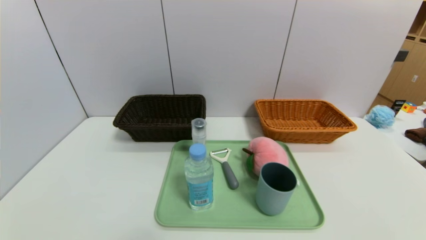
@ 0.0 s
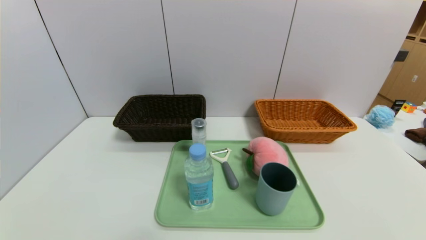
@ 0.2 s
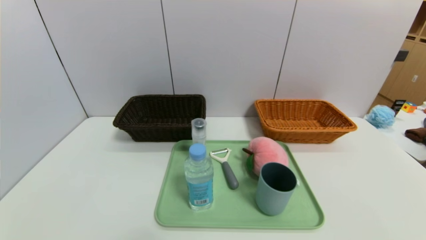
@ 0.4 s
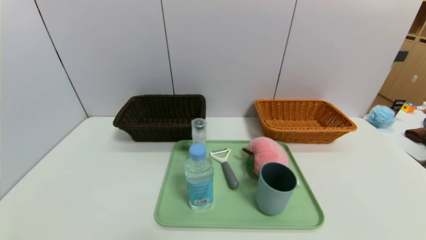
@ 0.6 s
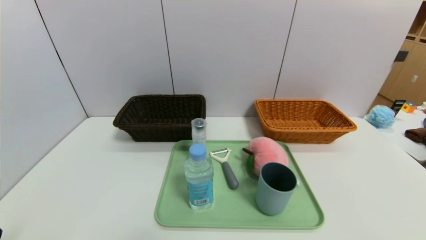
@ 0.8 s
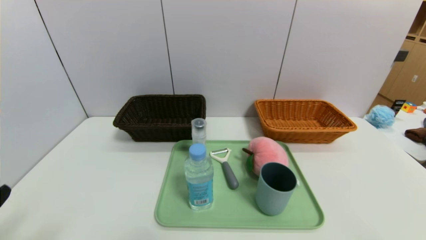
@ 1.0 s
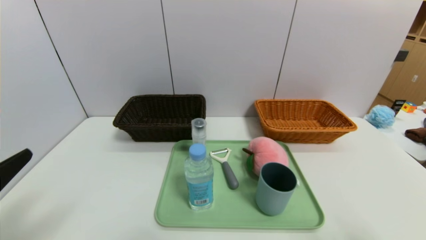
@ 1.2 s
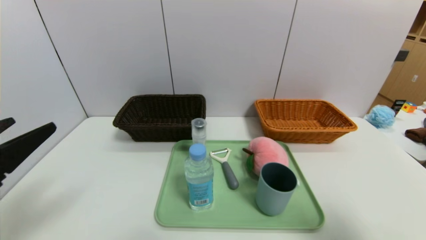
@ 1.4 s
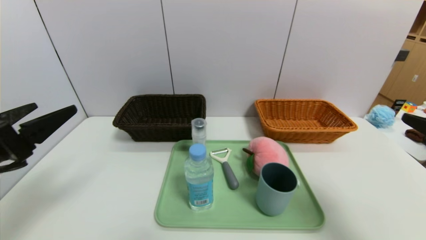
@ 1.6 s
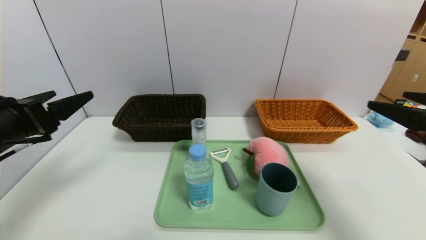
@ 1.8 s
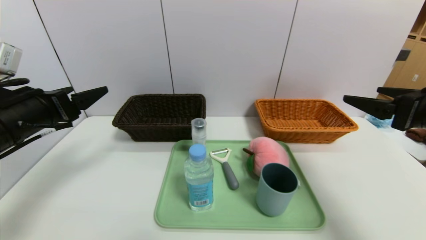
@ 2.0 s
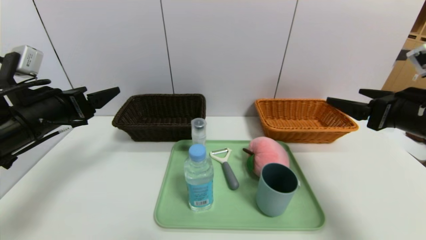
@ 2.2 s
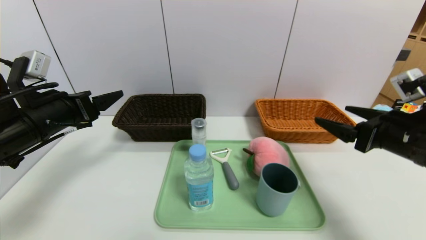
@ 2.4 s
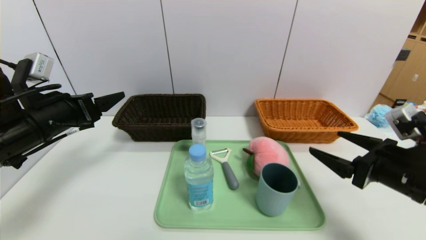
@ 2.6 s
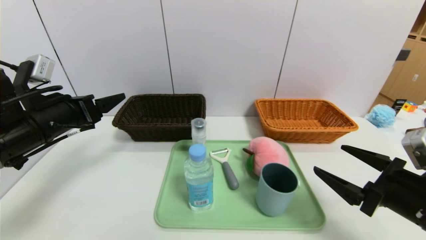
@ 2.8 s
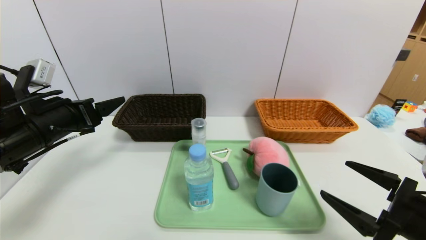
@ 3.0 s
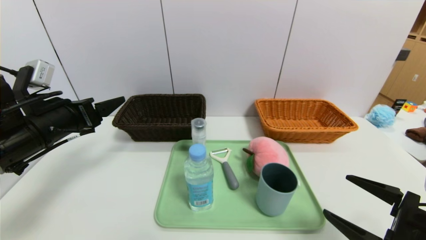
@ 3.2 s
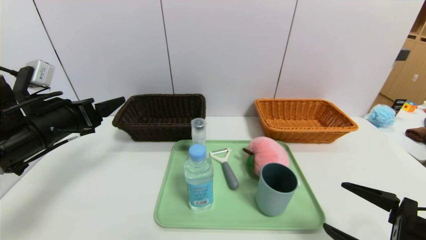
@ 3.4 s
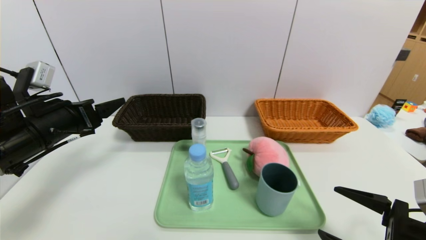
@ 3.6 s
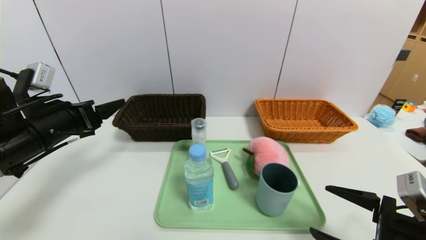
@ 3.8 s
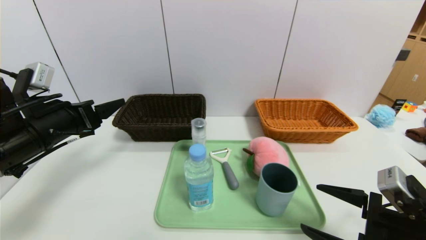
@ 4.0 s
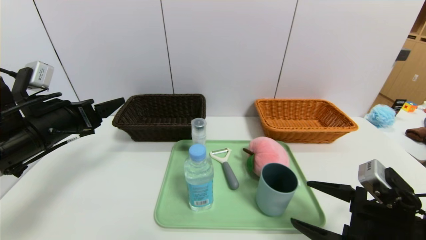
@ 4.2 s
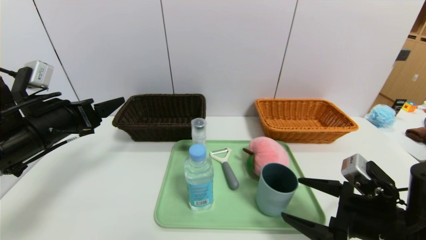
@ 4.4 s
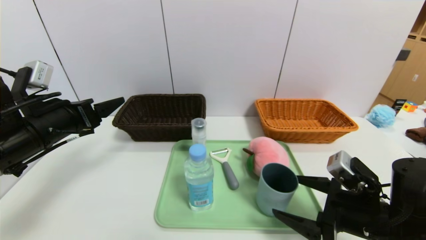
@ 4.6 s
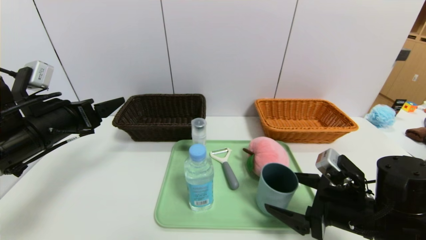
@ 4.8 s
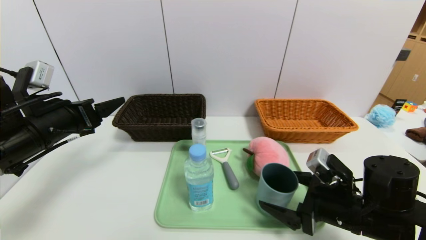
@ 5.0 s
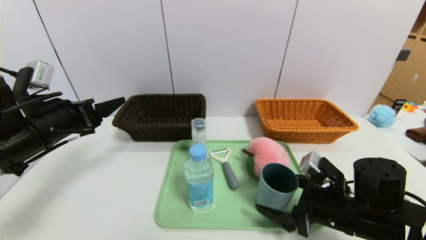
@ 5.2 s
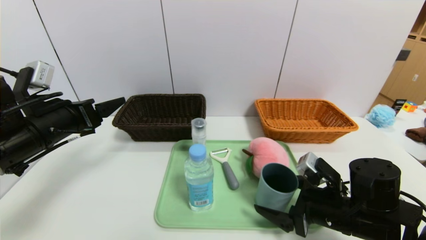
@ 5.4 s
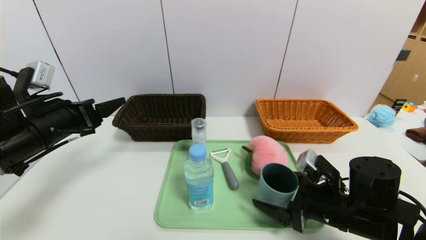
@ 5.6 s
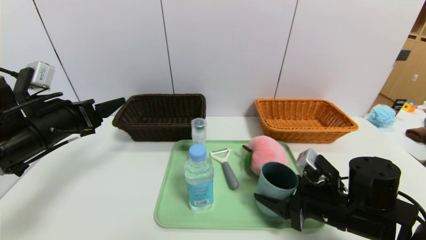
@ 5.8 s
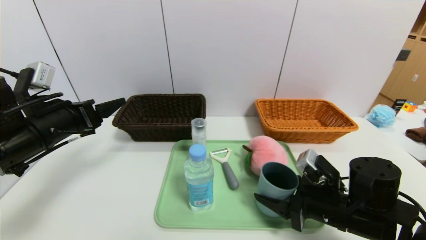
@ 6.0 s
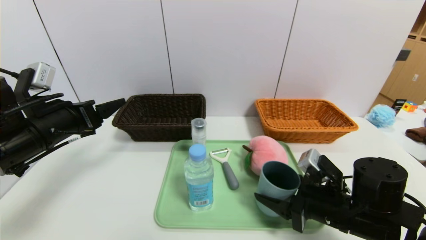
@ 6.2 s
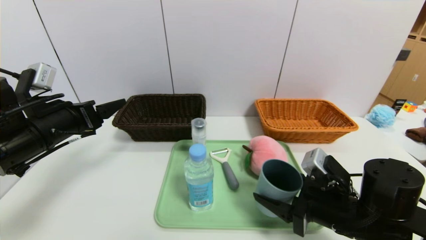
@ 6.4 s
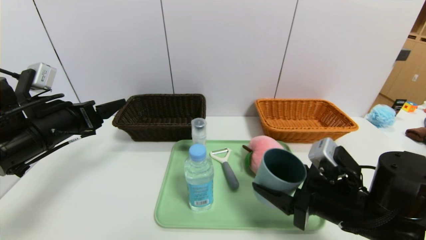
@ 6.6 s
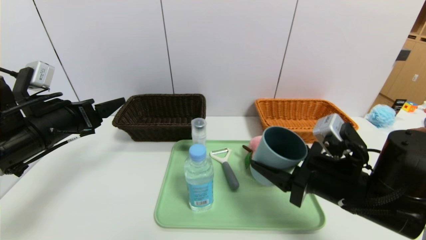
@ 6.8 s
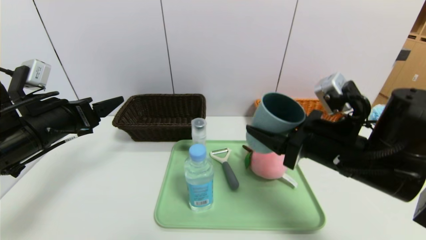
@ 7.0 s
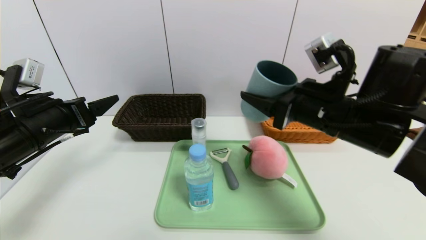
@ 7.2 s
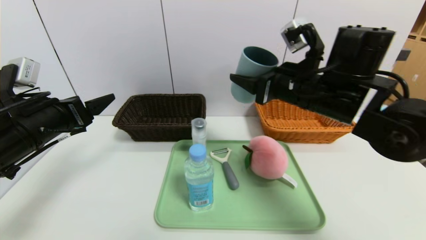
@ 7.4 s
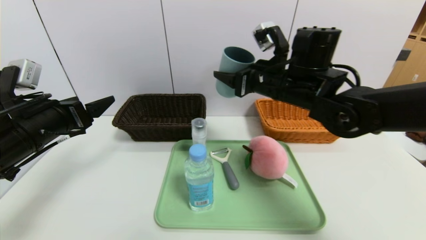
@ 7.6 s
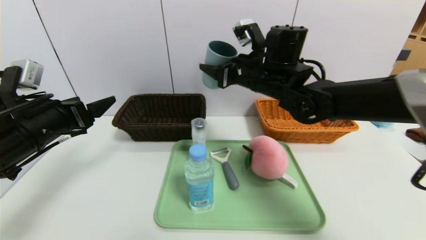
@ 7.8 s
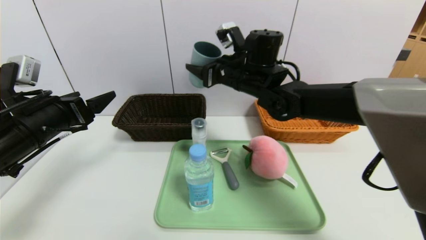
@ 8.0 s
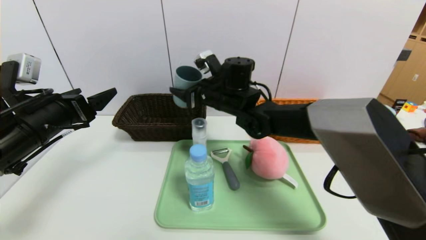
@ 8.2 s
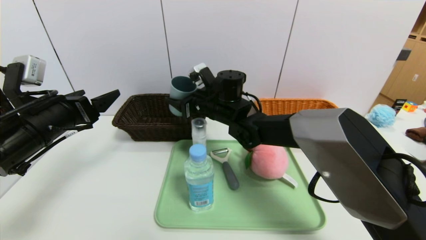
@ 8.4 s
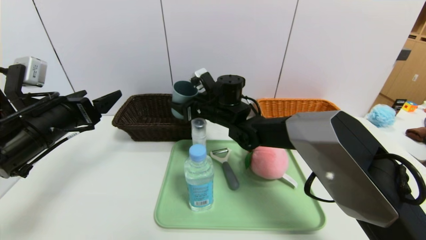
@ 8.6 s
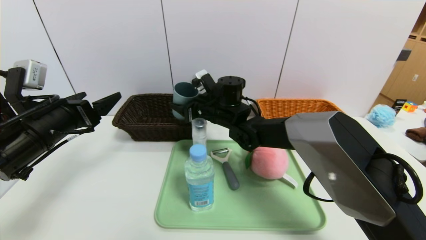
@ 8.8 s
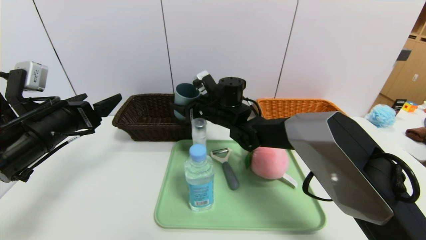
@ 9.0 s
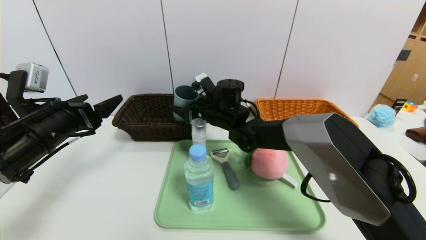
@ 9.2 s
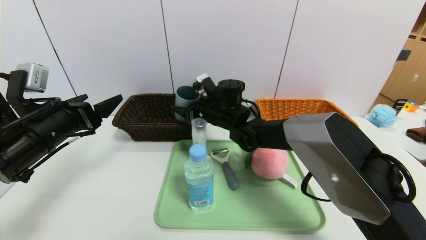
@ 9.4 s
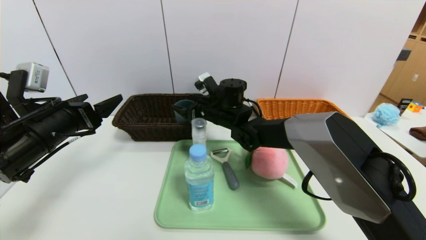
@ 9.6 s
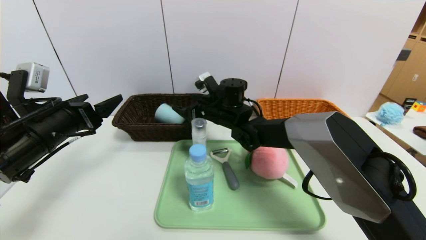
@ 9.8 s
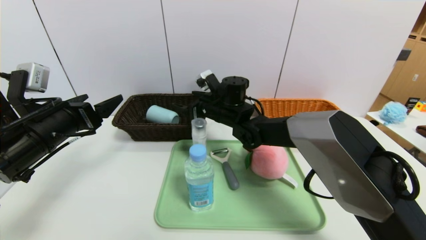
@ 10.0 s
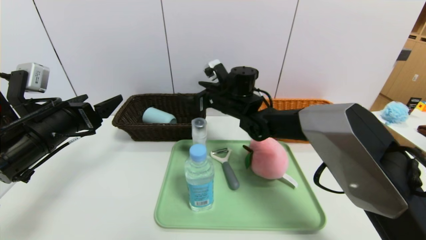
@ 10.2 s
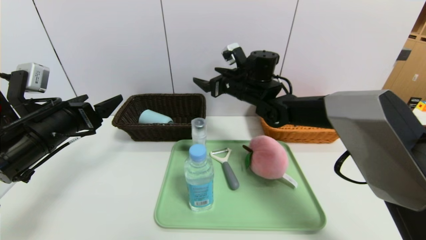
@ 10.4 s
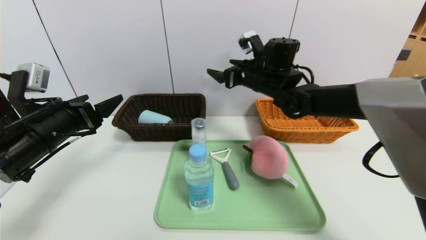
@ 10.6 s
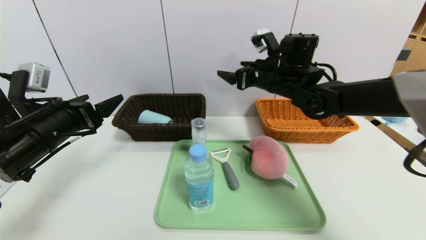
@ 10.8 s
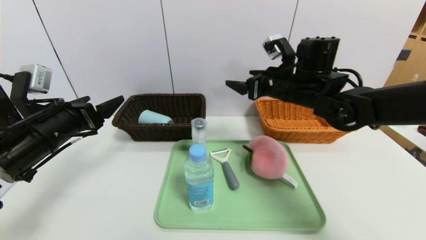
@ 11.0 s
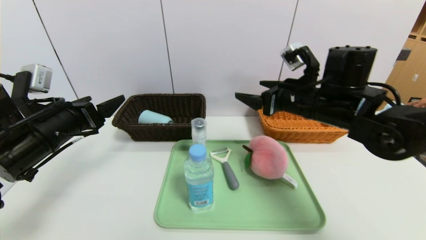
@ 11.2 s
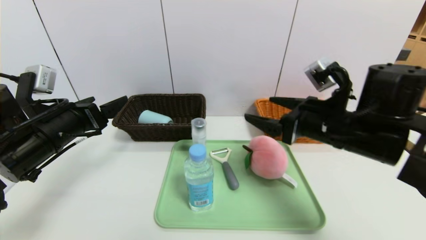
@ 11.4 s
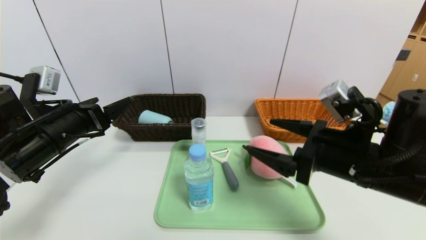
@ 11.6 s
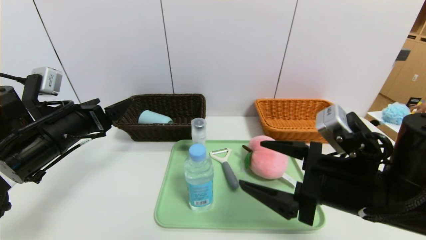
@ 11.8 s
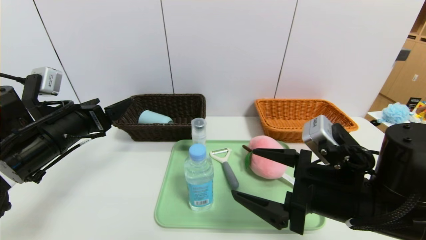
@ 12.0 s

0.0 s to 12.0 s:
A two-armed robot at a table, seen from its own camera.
Task of the whole recording: place the food in the right basket with the right gripper, and place the non food items in the left basket with the left gripper.
Step, 0.0 to 10.0 s: Grasp the blue cup and put it in the left basket.
0.0 to 1.6 s: The two grippers go about 25 cm upward and forward.
1.6 to 3.0 s: The left gripper heads forward, covering some 10 cm. The right gripper shifts approximately 15 cm downward.
3.0 to 4.4 s: The right gripper changes place by approximately 5 cm.
4.4 to 6.0 s: The right gripper ends up about 5 cm from where it was, and closes its fingers.
6.0 to 7.6 s: The right gripper moves upward, forward and to the left, some 25 cm.
7.6 to 9.0 s: The right gripper goes about 15 cm to the left, downward and forward.
9.0 to 10.4 s: The right gripper is displaced to the right and upward by about 10 cm, and opens its fingers.
10.4 to 12.0 s: The right gripper moves backward, some 25 cm.

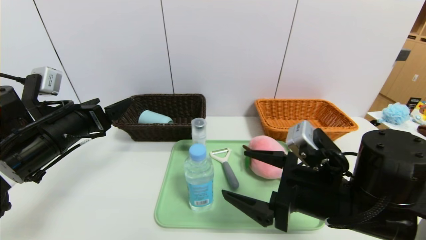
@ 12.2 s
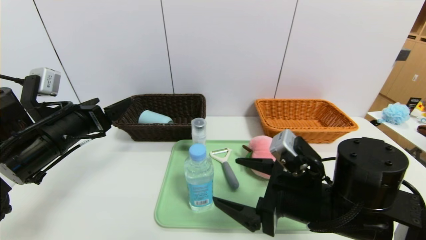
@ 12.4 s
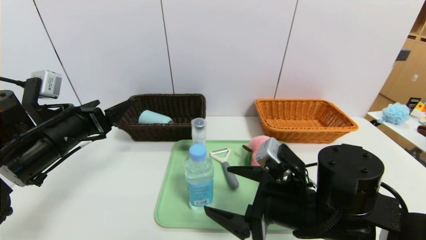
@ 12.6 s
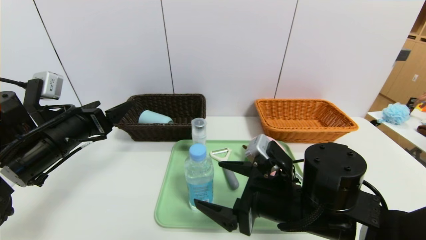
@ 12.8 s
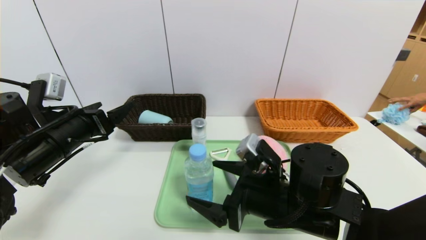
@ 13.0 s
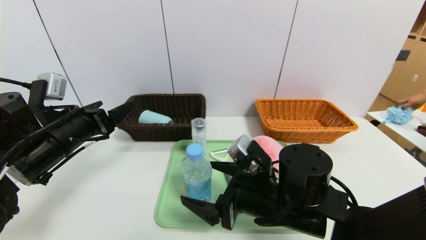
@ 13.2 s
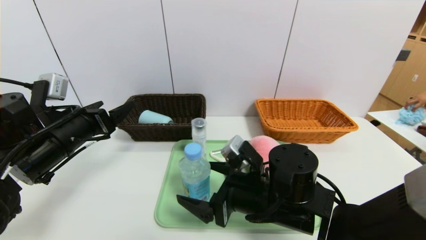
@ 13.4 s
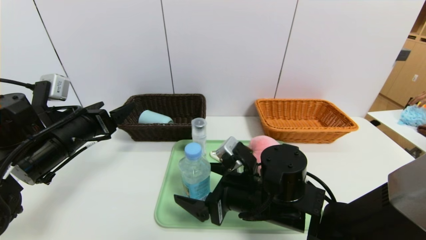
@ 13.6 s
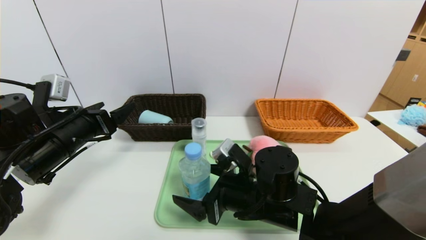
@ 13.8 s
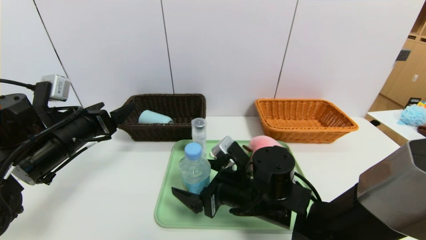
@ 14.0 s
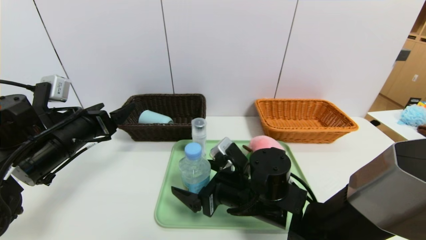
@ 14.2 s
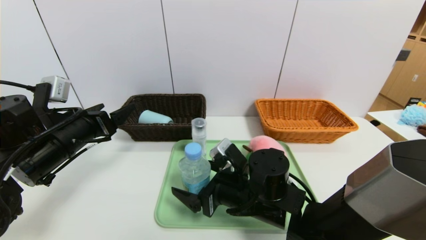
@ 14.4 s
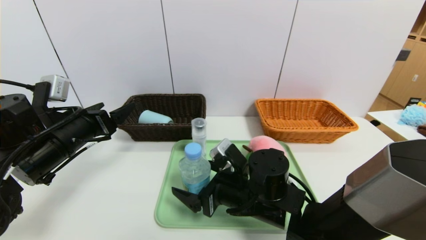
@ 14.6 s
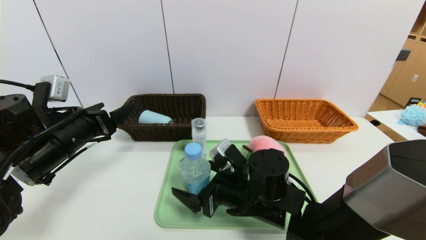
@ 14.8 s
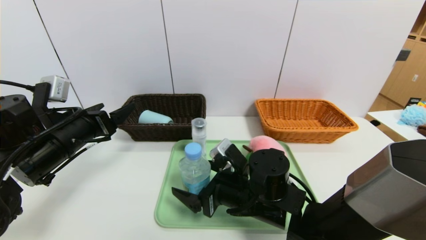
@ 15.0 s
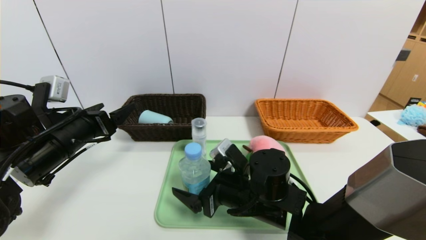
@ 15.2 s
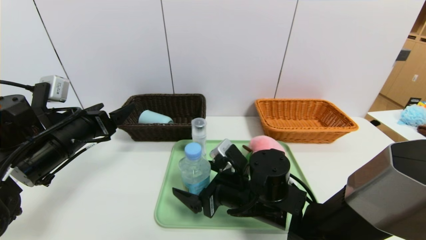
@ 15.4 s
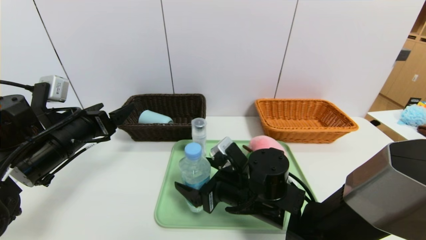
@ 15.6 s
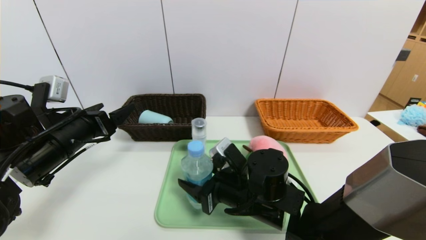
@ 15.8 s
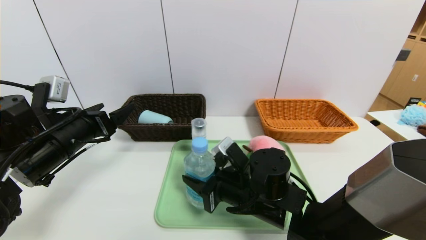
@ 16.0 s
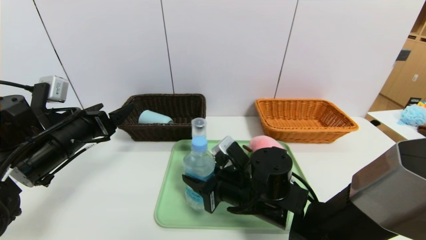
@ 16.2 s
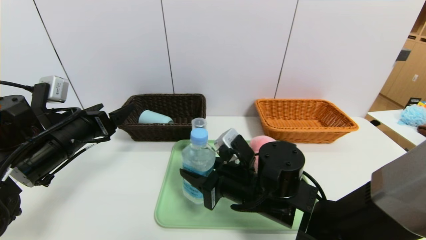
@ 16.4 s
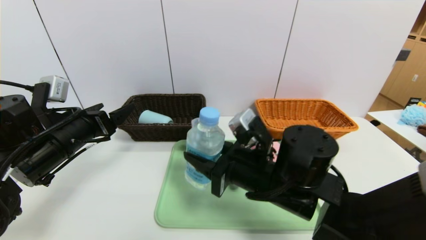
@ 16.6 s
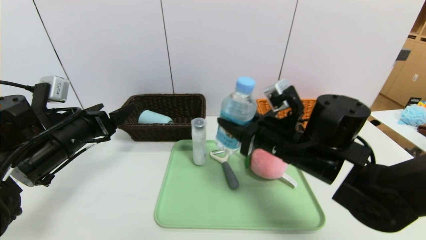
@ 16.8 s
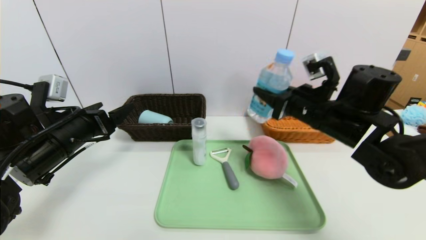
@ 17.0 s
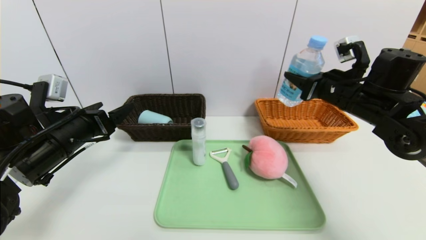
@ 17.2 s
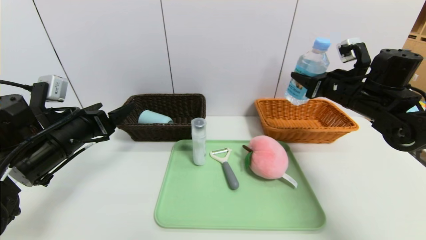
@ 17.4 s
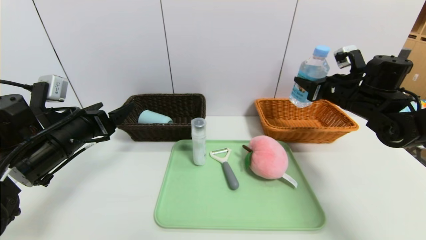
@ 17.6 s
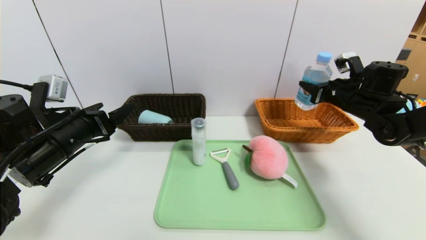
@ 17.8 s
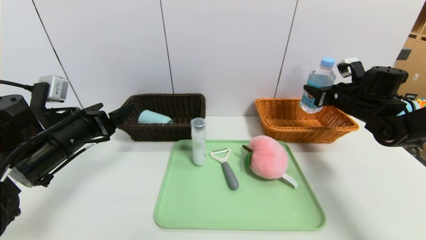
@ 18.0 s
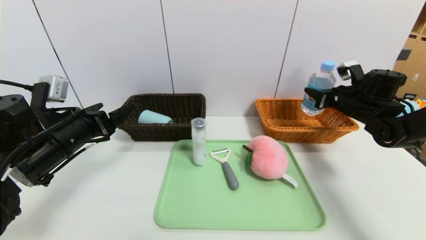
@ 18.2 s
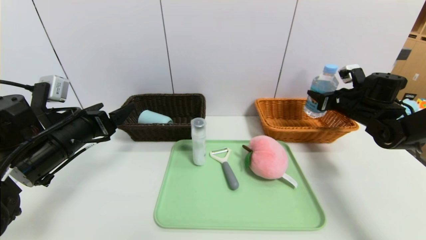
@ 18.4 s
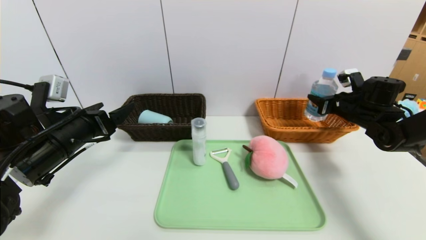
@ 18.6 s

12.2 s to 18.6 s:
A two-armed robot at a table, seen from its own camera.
Task of the whole recording: place the food in the right basket with the right gripper, and place the non food items in the left basket with the left gripper.
12.2 to 13.8 s: The right gripper travels to the left and downward by about 10 cm.
13.8 to 15.4 s: The grippers stay close to where they were, moving slightly.
15.4 to 17.0 s: The right gripper heads to the right, upward and forward, covering approximately 20 cm, and closes.
17.0 to 18.6 s: The right gripper is displaced to the right and forward by roughly 20 cm.
